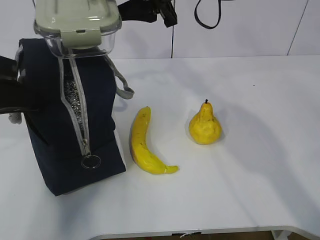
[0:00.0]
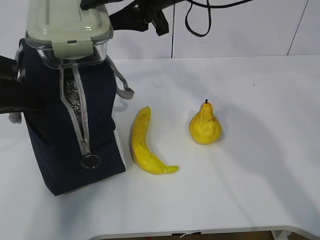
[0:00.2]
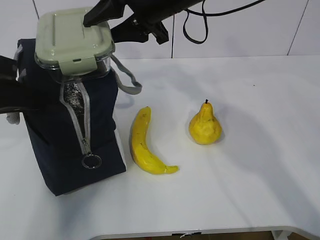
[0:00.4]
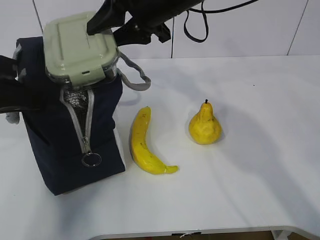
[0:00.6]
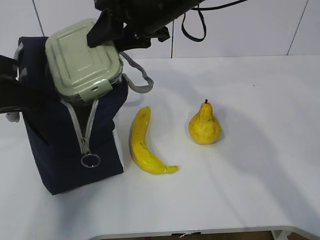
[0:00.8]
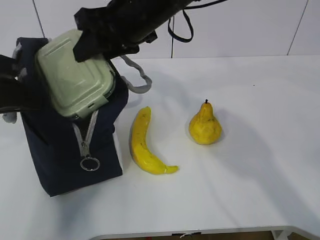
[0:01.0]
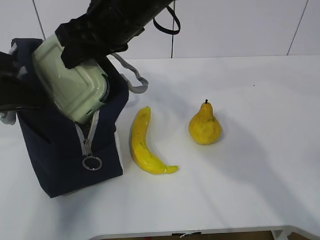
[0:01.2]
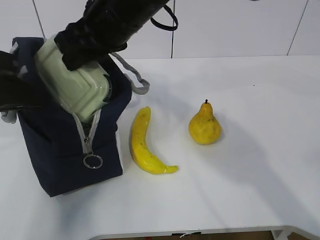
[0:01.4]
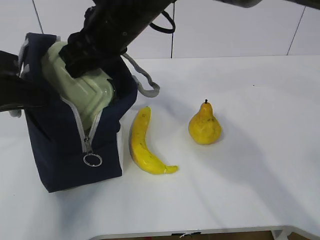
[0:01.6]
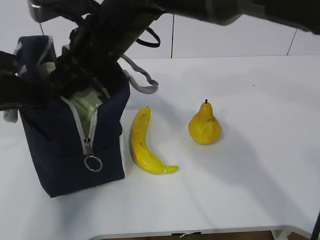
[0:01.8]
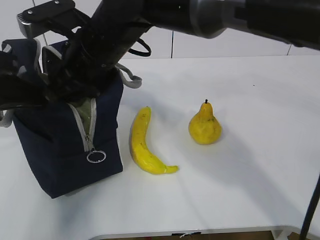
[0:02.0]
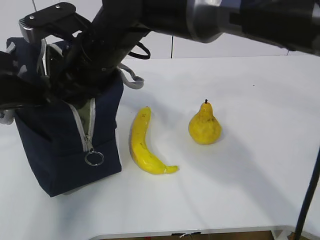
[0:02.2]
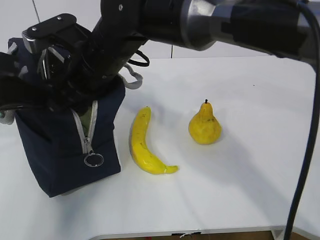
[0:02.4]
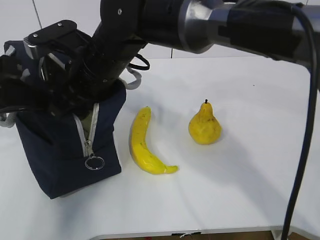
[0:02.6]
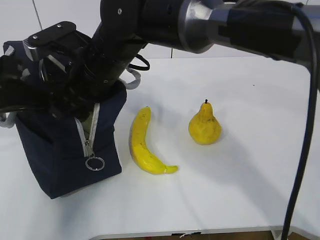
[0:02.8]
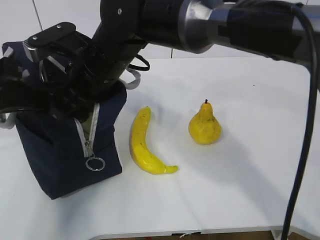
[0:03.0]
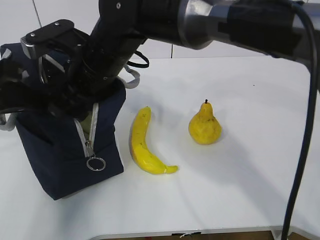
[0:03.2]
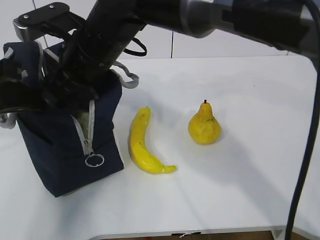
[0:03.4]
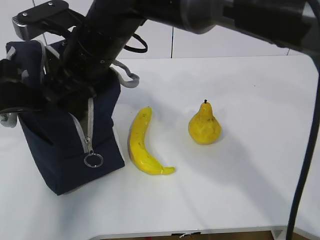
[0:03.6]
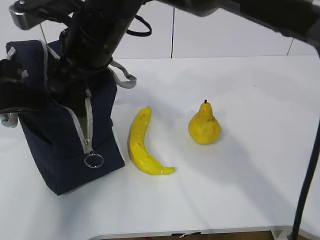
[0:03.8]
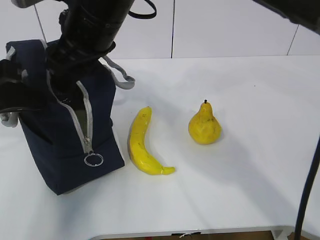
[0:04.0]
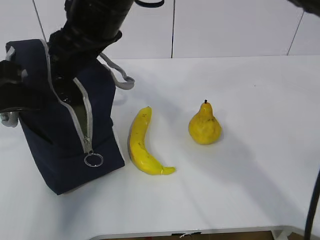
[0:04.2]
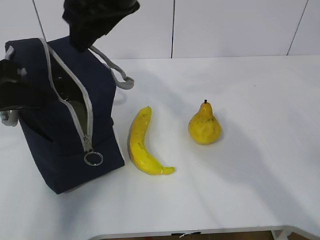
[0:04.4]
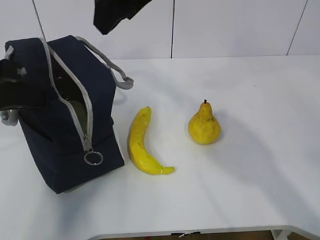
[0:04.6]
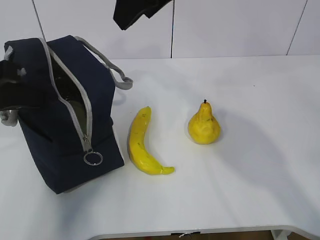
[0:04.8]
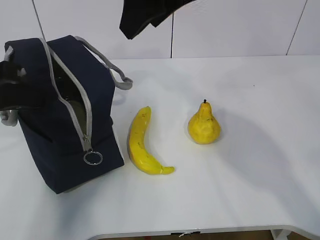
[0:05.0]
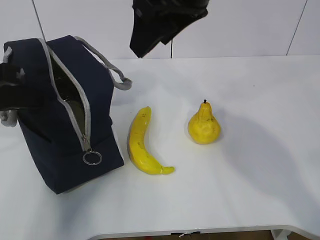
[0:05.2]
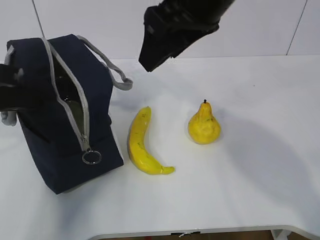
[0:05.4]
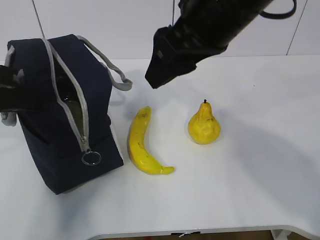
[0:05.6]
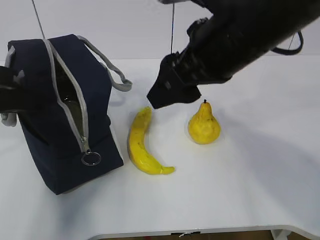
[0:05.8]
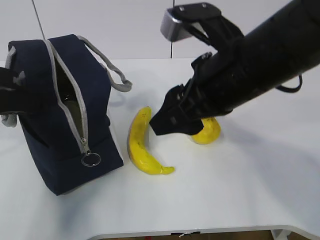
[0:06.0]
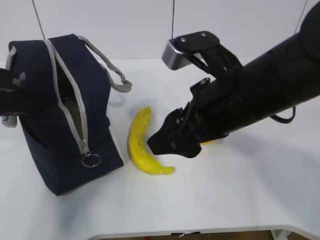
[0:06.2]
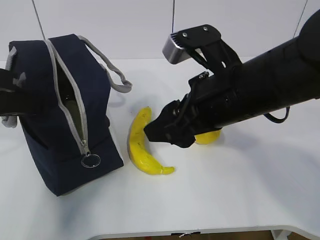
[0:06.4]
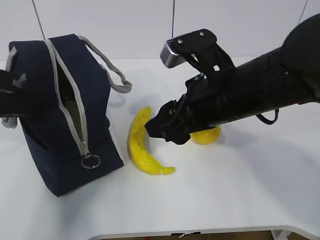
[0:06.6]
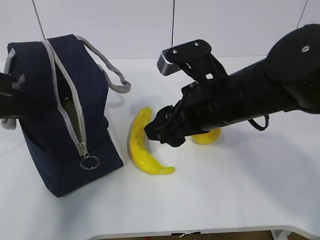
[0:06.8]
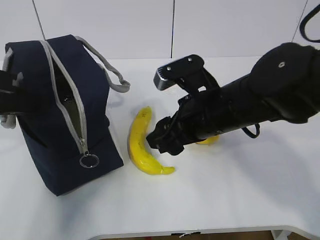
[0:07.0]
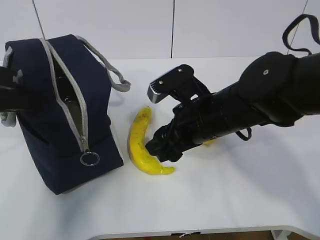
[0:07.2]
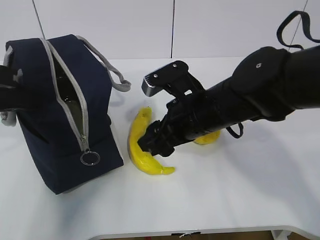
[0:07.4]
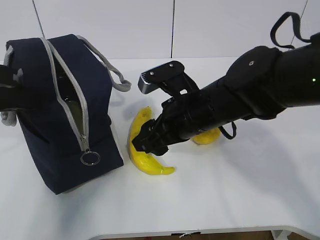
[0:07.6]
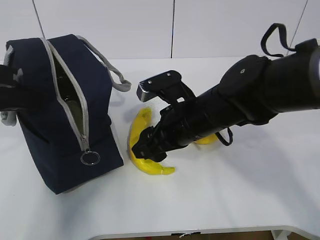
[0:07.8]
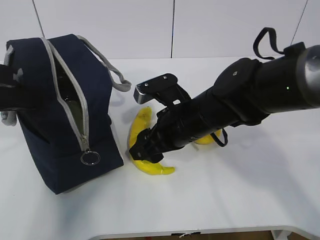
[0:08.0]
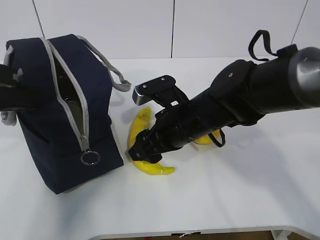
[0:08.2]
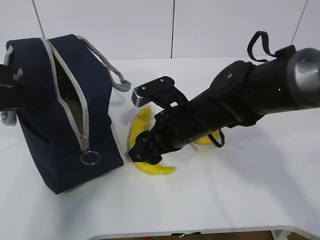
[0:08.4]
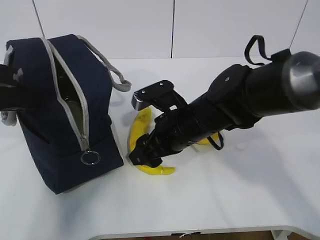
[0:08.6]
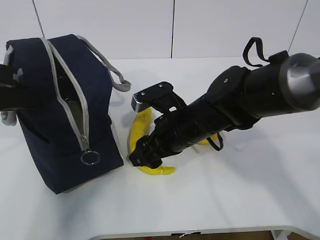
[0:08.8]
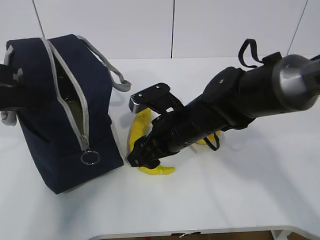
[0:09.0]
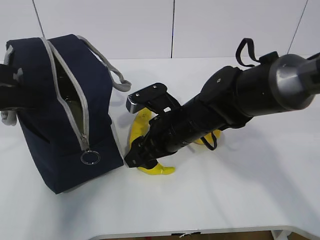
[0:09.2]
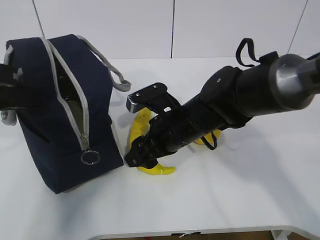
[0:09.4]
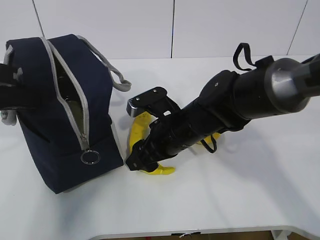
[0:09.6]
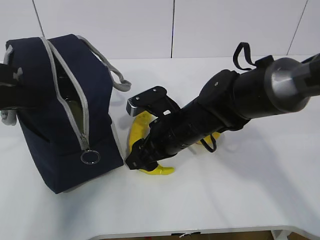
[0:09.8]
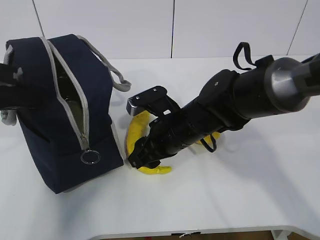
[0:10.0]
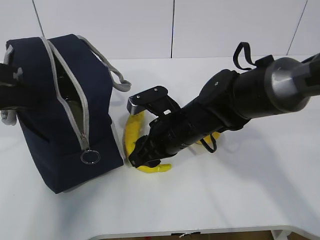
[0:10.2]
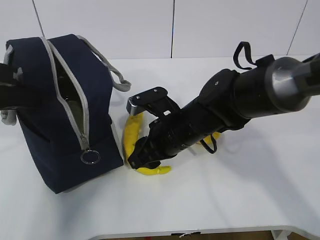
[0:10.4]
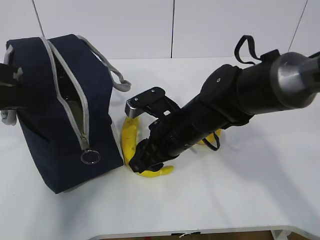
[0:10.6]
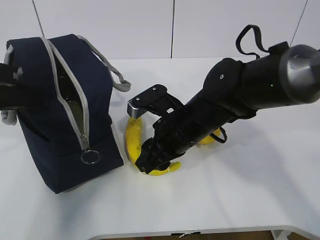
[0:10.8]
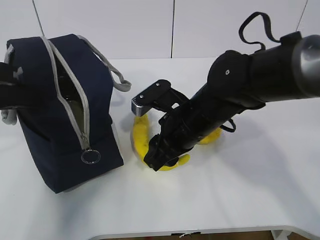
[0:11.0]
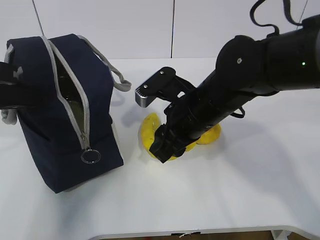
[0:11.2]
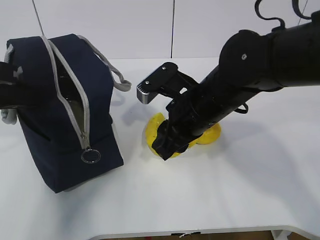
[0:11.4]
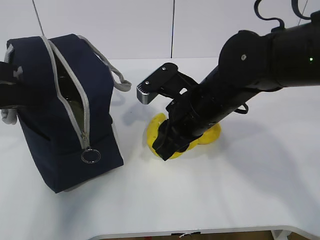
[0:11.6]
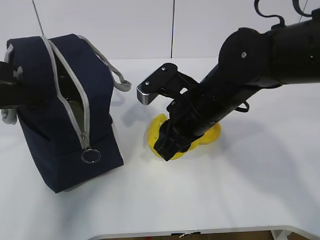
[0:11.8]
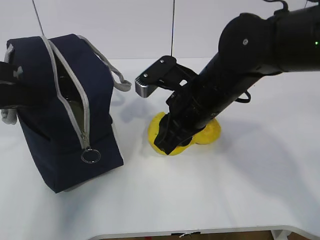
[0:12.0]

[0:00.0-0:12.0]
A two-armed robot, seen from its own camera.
Step, 0:00.0 to 0:03.8: Place the box into the package with the right gripper.
Step, 0:04.0 to 0:10.6: Grasp the banana with the right gripper.
0:00.0 to 0:01.6: The right gripper shifts about 10 cm to the left.
0:01.6 to 0:03.0: The right gripper goes approximately 5 cm downward.
0:03.0 to 0:04.4: The right gripper travels upward by approximately 10 cm.
0:04.4 to 0:06.0: The right gripper heads to the right, backward and downward, covering roughly 15 cm.
0:06.0 to 0:07.6: The right gripper is displaced downward and forward by roughly 10 cm.
0:07.6 to 0:09.0: The grippers make only small movements.
0:09.0 to 0:10.4: Neither gripper changes place.
0:10.4 to 0:12.0: The right gripper heads upward, covering approximately 10 cm.

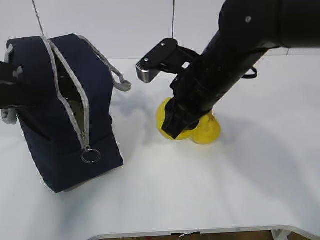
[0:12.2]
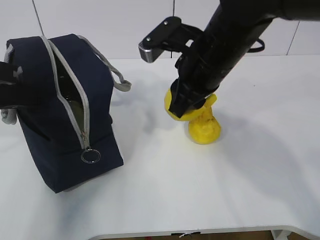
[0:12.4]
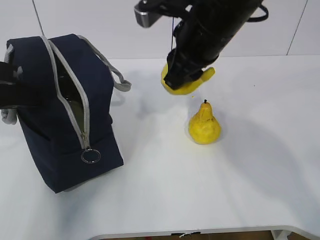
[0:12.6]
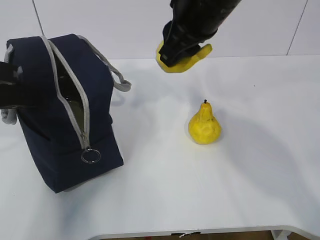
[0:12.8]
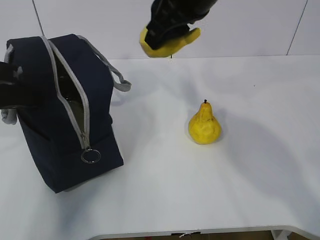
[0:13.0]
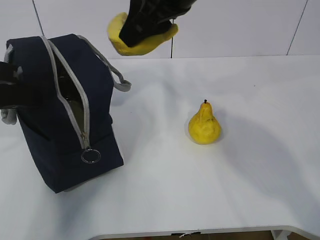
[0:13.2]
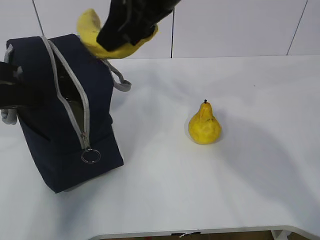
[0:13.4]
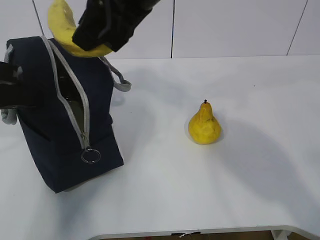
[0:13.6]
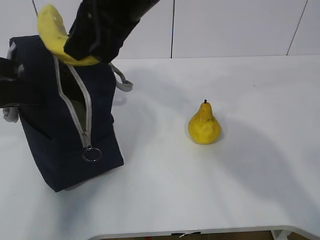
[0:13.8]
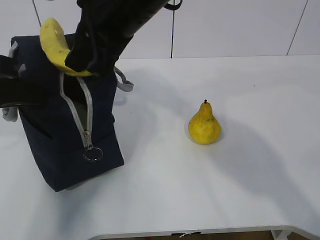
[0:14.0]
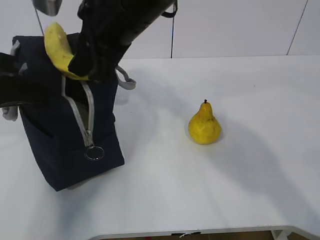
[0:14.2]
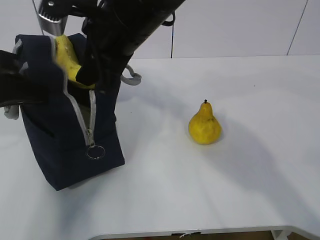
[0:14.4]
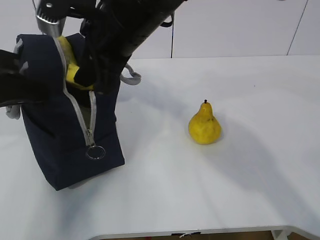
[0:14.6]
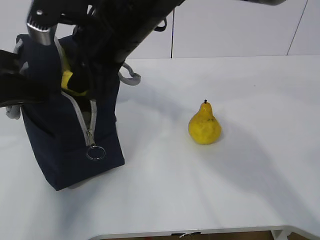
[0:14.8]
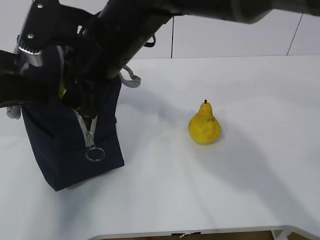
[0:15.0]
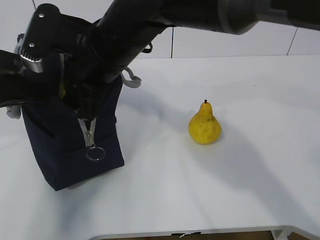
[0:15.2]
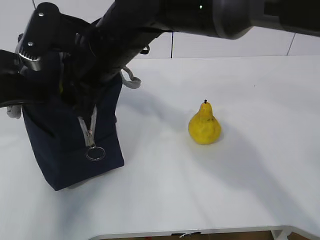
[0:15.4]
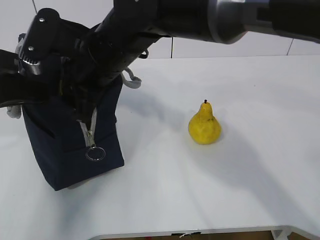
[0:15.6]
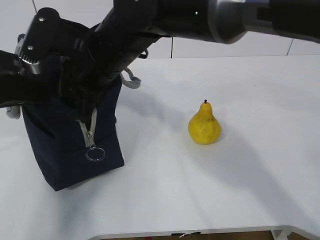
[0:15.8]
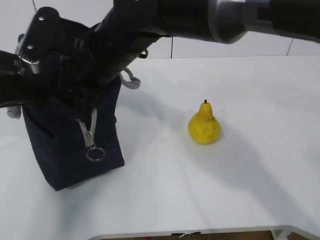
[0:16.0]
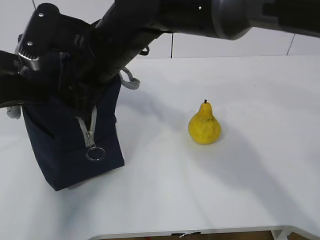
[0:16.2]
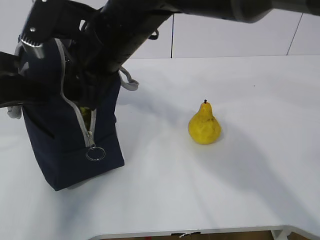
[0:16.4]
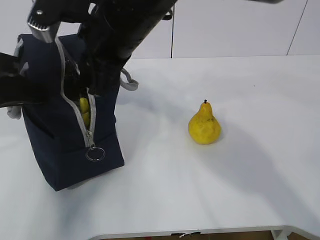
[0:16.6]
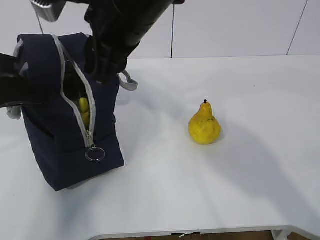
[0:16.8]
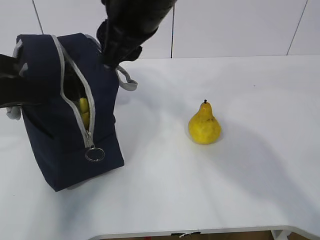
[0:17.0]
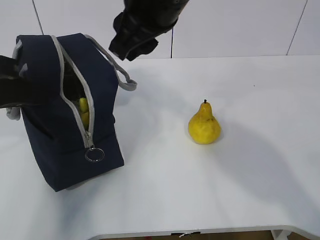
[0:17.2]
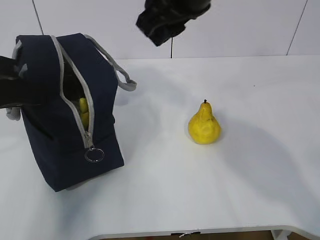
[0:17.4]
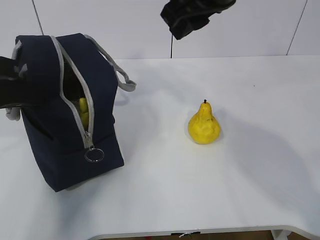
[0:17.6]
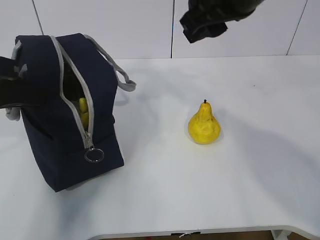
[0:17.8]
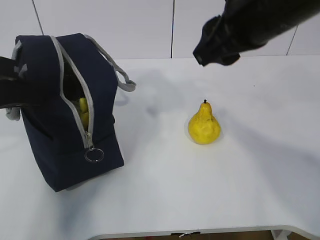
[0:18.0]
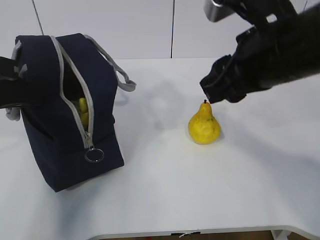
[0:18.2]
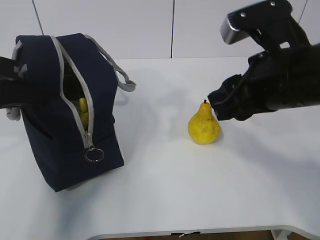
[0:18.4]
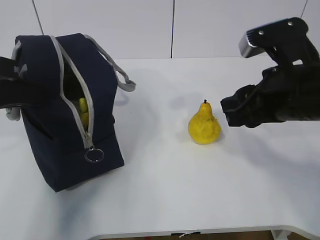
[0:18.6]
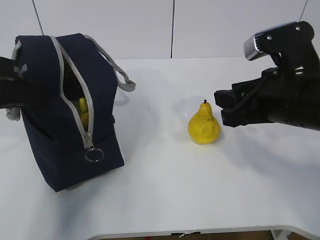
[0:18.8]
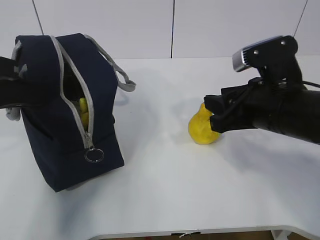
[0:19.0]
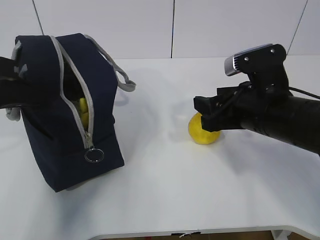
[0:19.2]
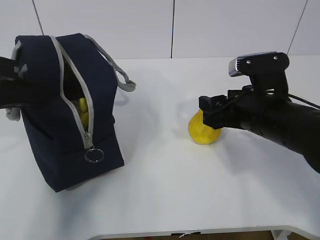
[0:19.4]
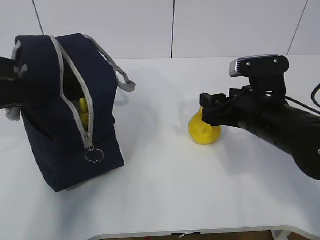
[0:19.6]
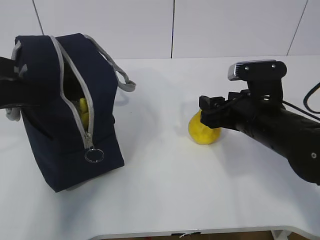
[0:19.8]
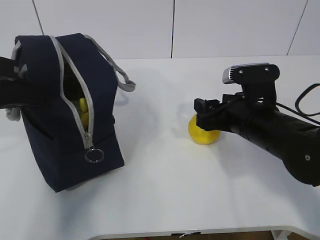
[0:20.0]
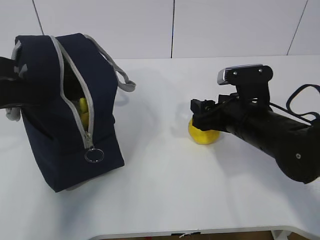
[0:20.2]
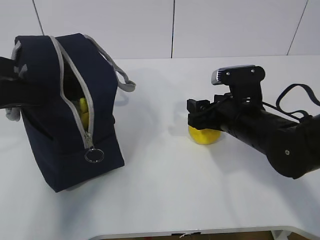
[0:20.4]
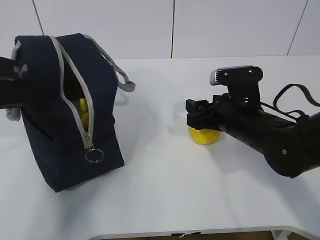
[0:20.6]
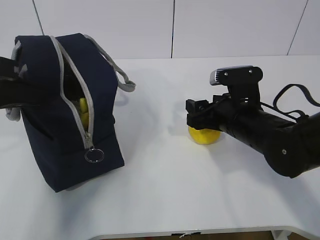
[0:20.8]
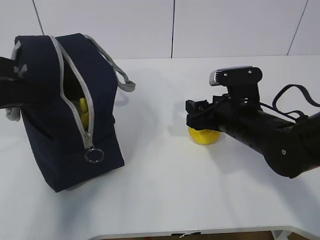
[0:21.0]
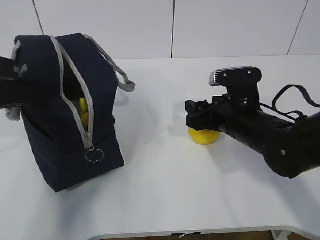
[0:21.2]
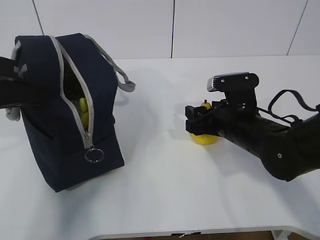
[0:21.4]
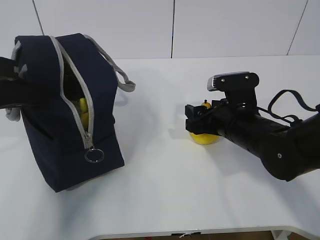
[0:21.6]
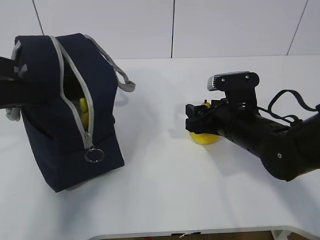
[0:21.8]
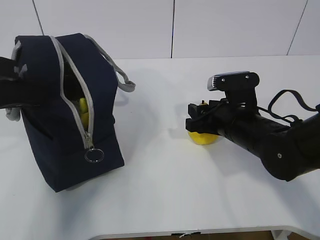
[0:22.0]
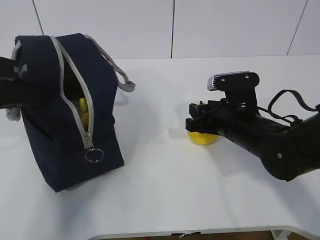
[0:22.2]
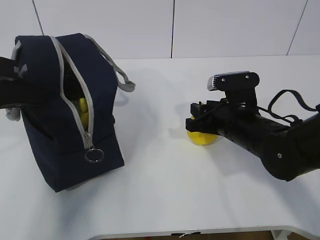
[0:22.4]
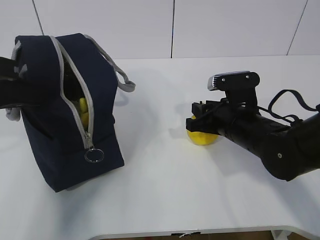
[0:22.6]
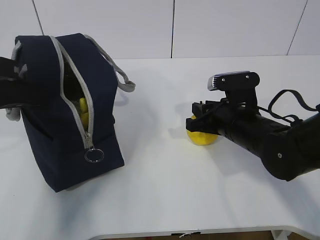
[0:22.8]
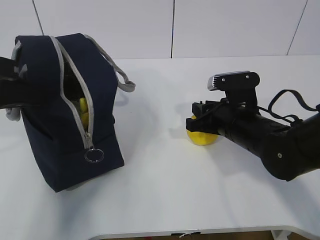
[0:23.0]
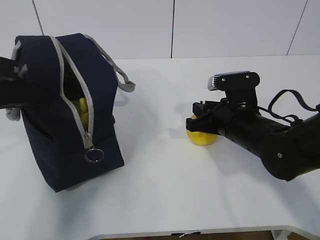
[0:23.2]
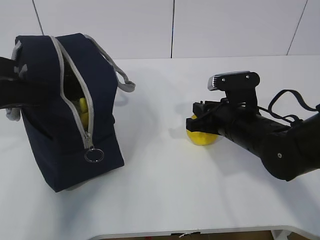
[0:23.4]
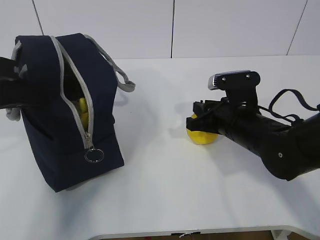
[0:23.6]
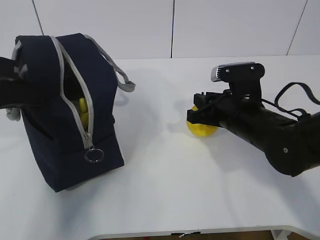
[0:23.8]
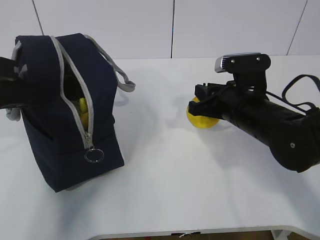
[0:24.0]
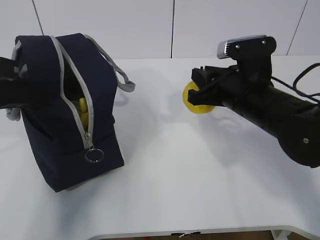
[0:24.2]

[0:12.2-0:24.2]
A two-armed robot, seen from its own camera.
Step, 0:12.2 to 0:16.4: Place the banana into the package with the right gripper.
Step, 0:16.6 to 0:23.4: Grasp the pear with the right gripper.
0:12.2 to 0:13.8: The right gripper travels upward and to the left by approximately 15 cm.
0:13.8 to 0:15.2: The right gripper is displaced downward by approximately 10 cm.
0:15.2 to 0:16.6: There are only small adjustments of the grippers.
0:16.6 to 0:18.2: The right gripper moves to the right and backward, about 20 cm.
0:18.2 to 0:19.8: The right gripper shifts approximately 15 cm downward, and opens its fingers.
0:19.8 to 0:21.2: There are only small adjustments of the grippers.
0:21.2 to 0:22.6: The right gripper closes.
0:22.6 to 0:24.2: The right gripper heads upward, covering roughly 5 cm.
